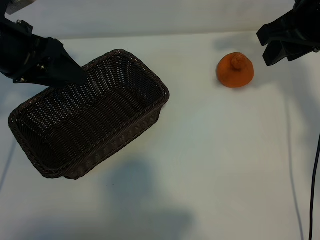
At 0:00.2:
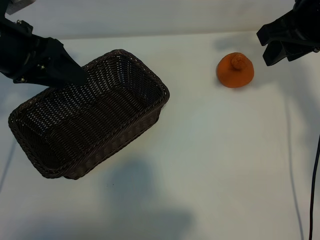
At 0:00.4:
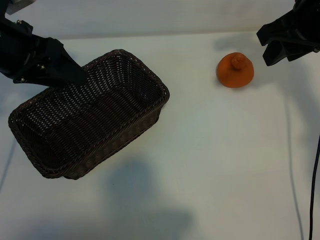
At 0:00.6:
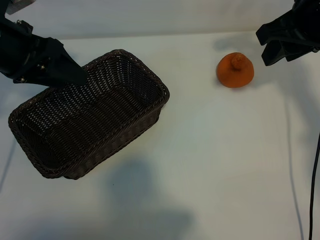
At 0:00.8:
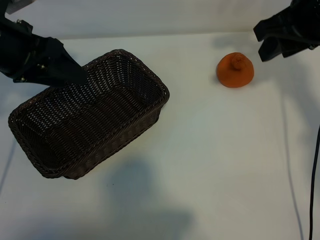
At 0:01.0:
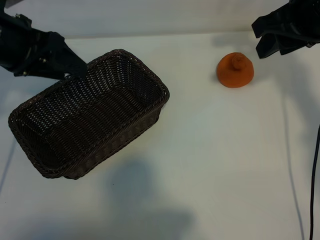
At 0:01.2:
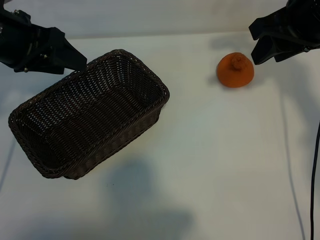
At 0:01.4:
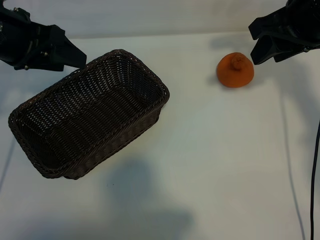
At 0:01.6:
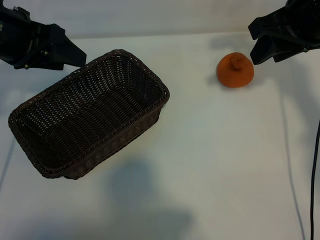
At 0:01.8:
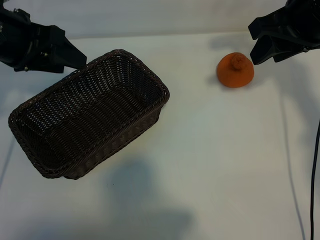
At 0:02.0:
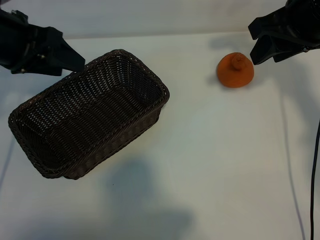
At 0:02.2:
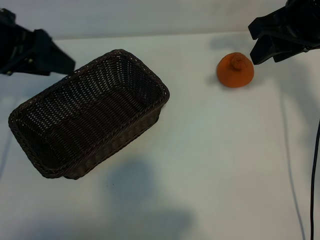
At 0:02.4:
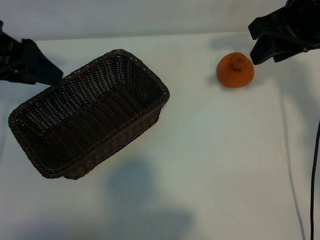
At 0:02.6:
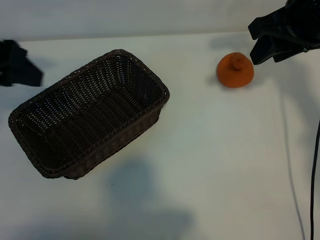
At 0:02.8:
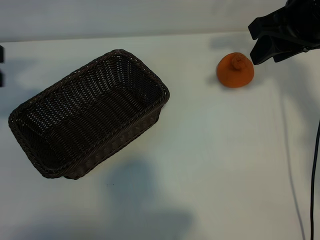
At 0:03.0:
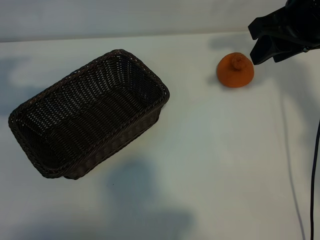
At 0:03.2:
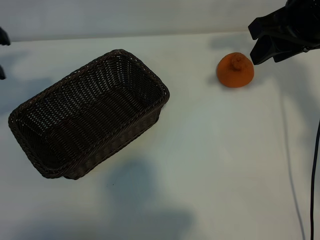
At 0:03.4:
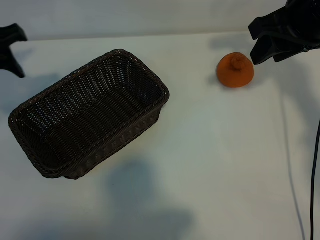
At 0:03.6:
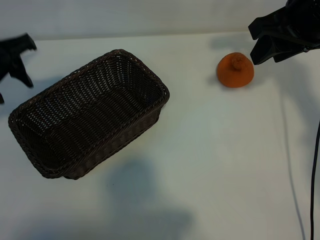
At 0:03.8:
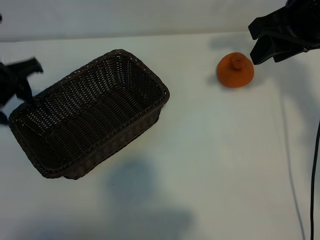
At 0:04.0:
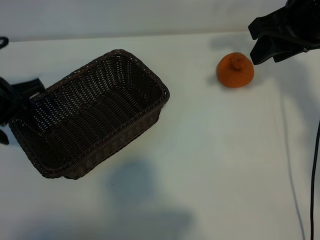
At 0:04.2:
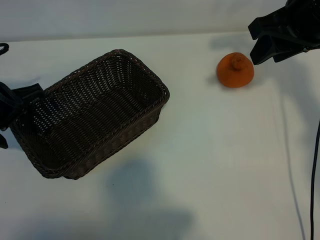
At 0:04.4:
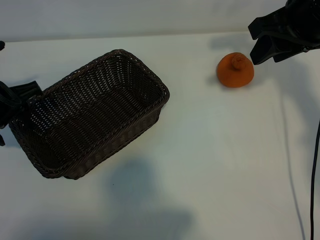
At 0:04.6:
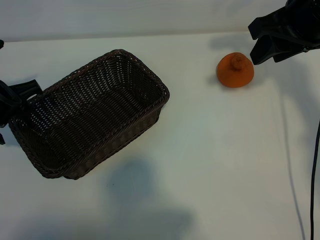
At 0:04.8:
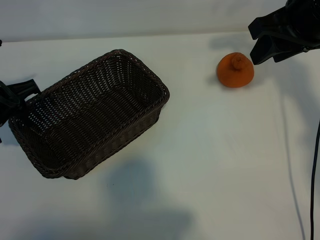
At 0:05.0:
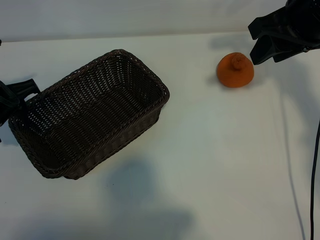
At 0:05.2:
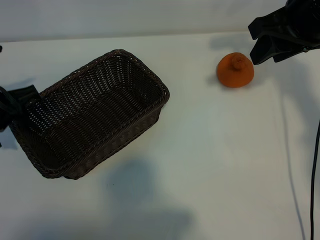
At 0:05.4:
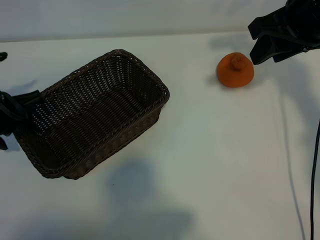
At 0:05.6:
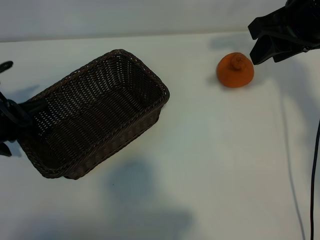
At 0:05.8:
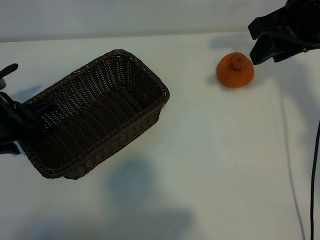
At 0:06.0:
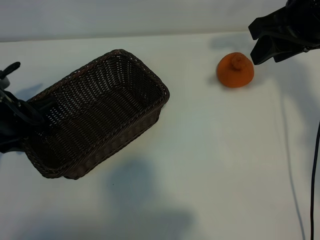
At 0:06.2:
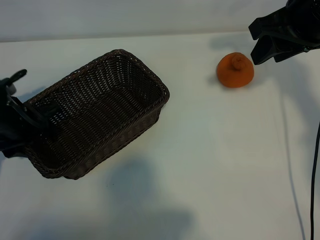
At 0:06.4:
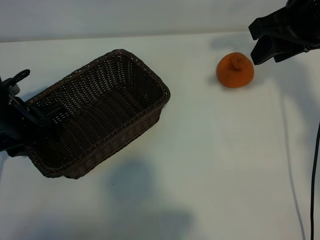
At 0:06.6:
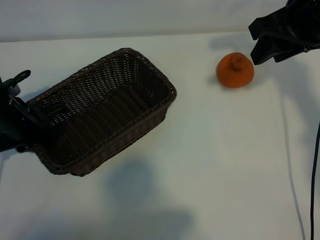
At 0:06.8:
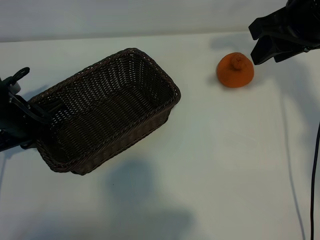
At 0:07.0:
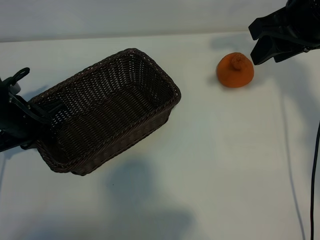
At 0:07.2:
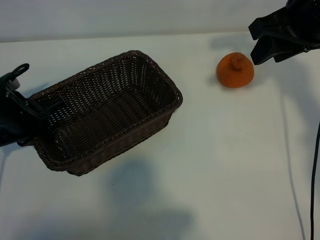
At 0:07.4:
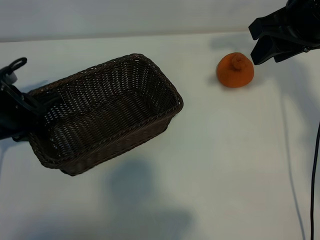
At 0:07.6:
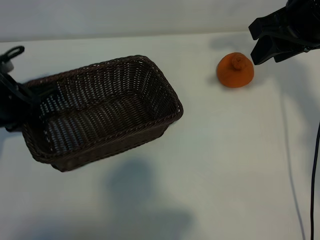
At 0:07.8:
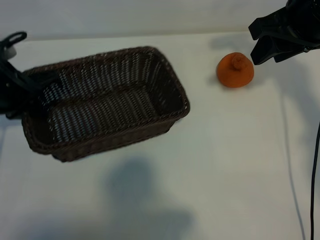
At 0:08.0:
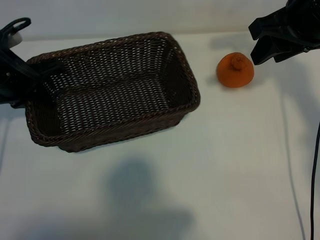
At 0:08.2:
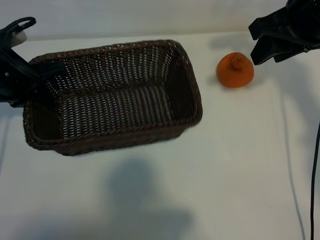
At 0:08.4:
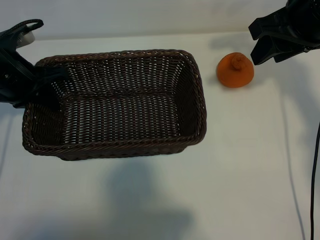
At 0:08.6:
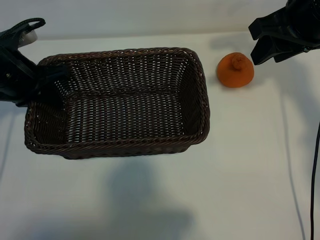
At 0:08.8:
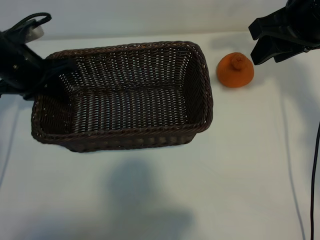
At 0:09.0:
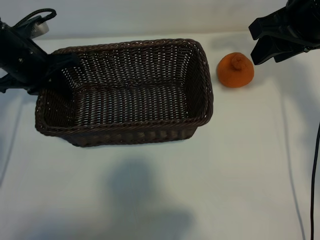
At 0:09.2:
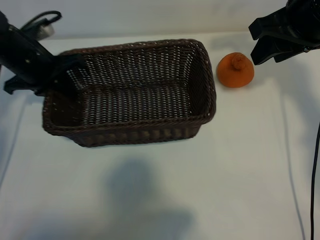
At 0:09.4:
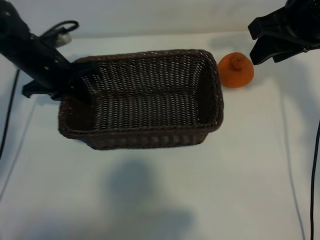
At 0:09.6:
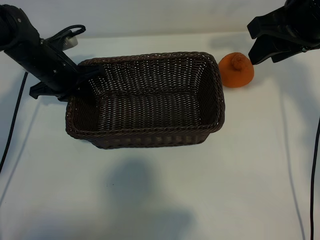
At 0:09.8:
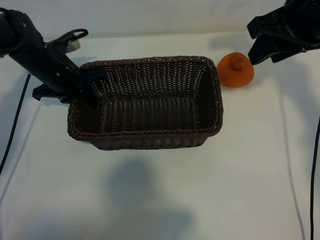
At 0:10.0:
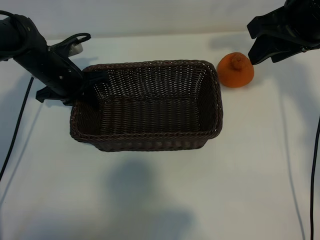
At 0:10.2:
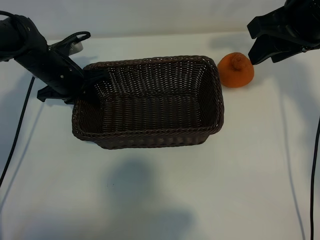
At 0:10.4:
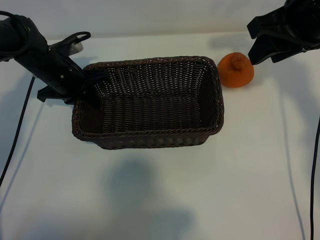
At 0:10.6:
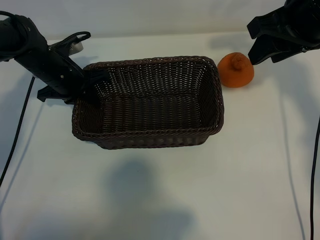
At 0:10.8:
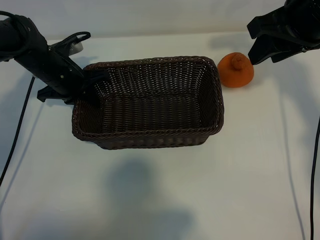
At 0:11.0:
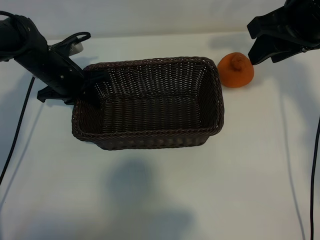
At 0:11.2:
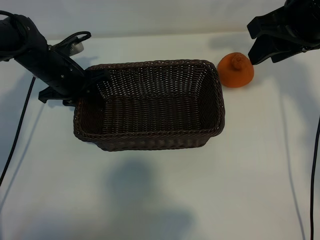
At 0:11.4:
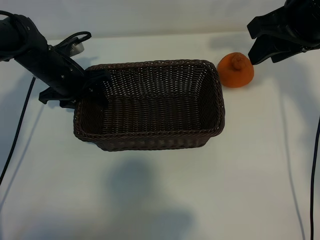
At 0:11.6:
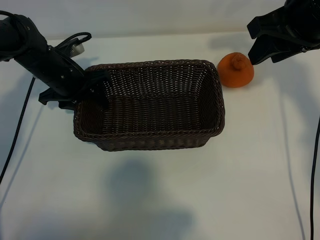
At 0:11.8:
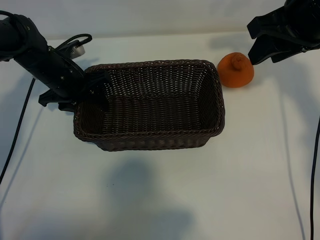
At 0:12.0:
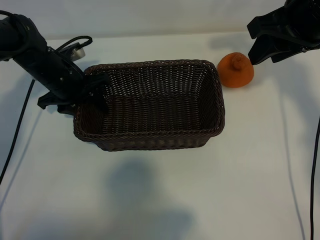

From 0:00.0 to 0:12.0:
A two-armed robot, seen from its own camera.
Task of the whole recording: pick up the orange and put it into the basket.
Step, from 0:00.6 to 0:06.6: Grasp the basket with left gripper.
Step, from 0:06.8 to 0:11.2: Place the basket in the center of view with left gripper.

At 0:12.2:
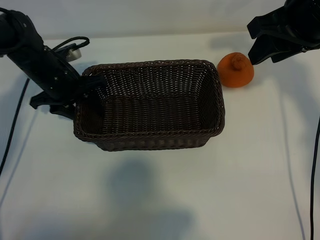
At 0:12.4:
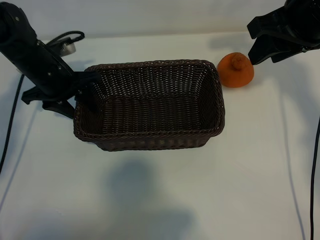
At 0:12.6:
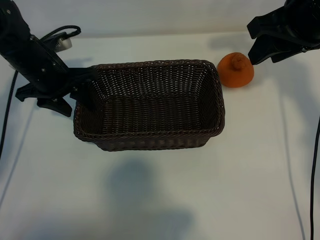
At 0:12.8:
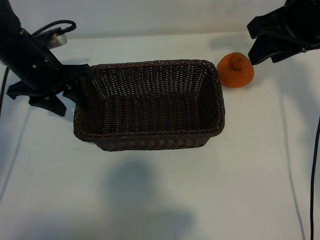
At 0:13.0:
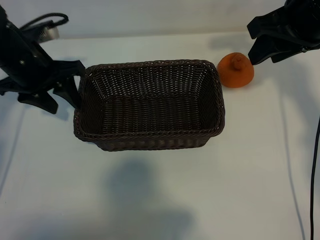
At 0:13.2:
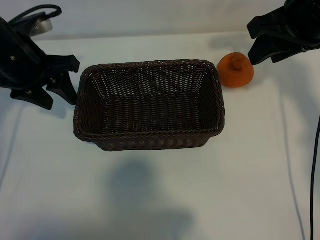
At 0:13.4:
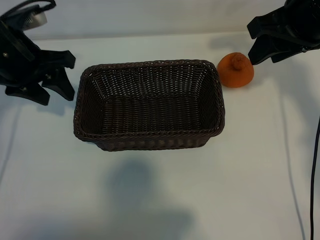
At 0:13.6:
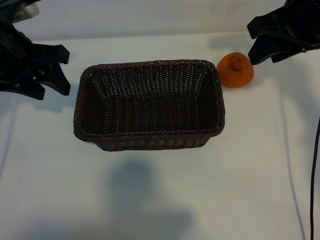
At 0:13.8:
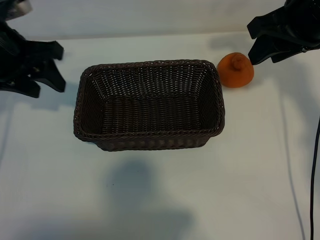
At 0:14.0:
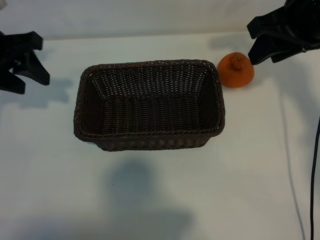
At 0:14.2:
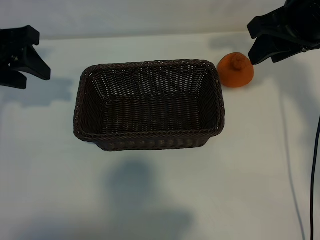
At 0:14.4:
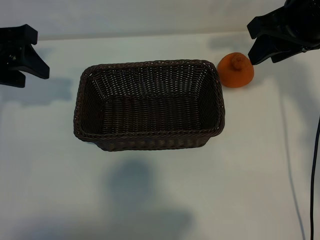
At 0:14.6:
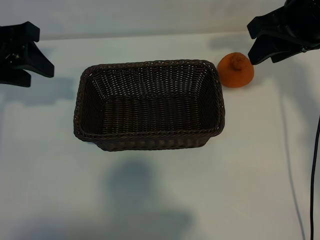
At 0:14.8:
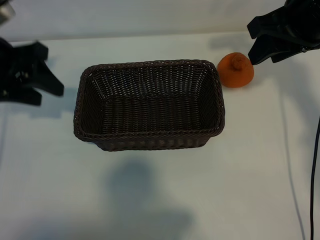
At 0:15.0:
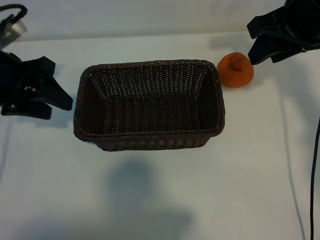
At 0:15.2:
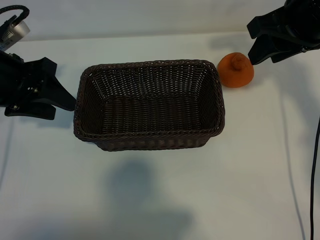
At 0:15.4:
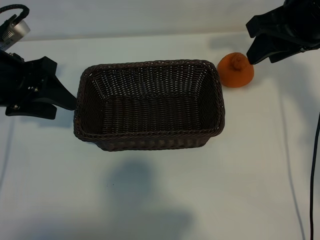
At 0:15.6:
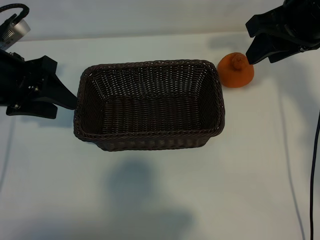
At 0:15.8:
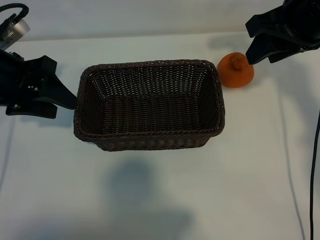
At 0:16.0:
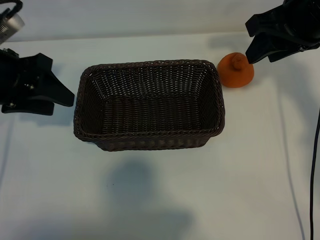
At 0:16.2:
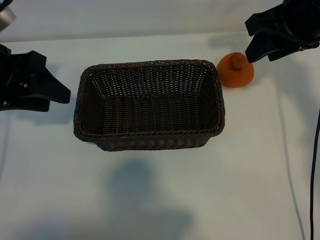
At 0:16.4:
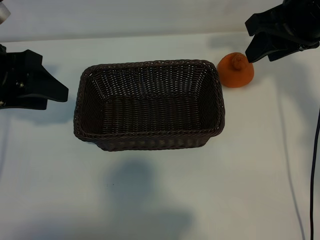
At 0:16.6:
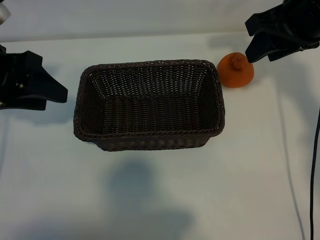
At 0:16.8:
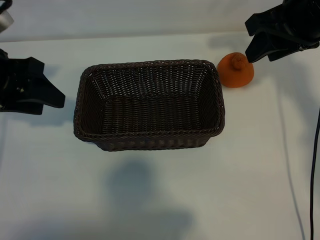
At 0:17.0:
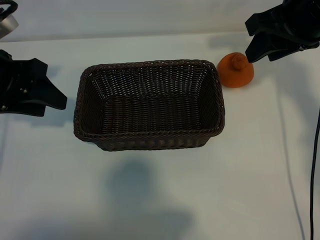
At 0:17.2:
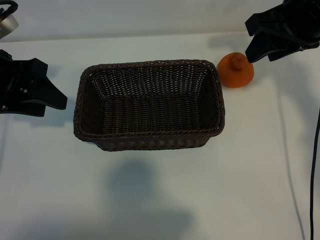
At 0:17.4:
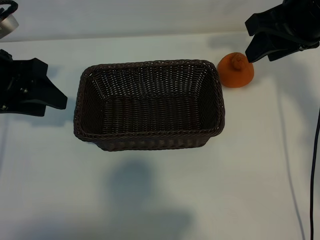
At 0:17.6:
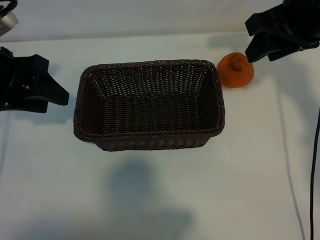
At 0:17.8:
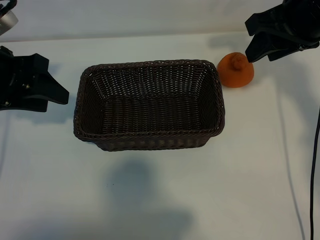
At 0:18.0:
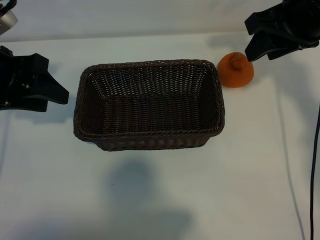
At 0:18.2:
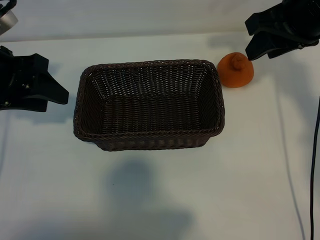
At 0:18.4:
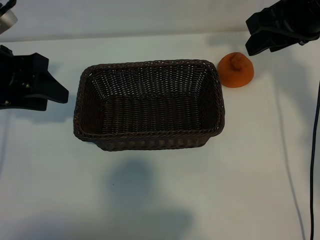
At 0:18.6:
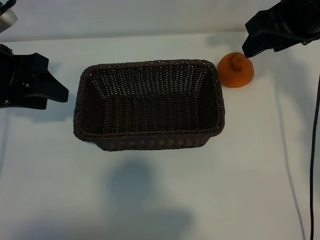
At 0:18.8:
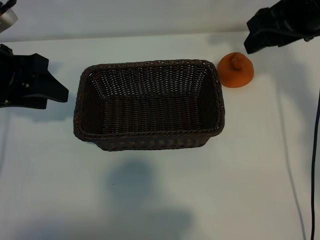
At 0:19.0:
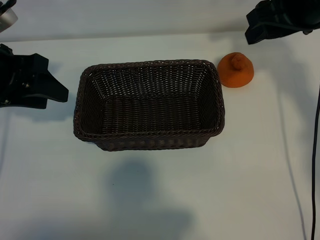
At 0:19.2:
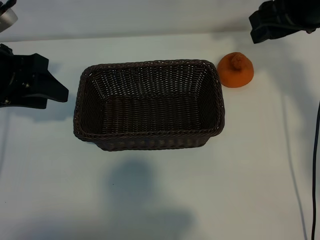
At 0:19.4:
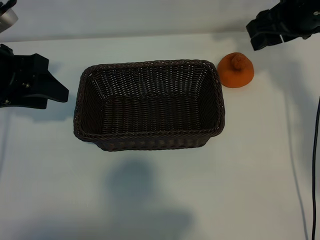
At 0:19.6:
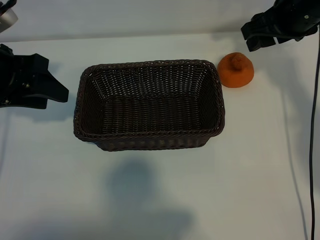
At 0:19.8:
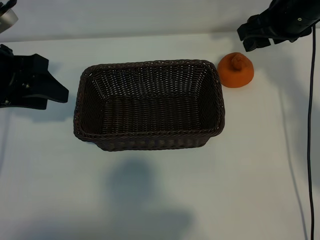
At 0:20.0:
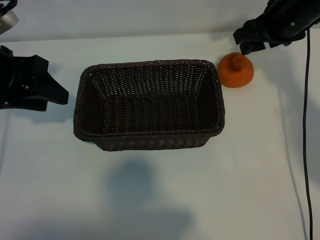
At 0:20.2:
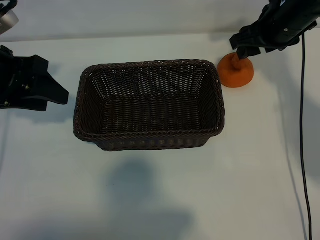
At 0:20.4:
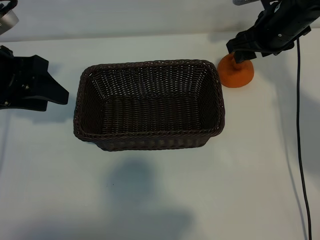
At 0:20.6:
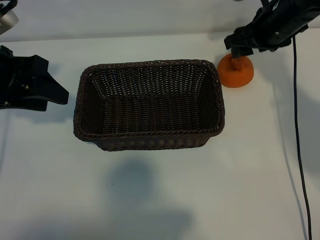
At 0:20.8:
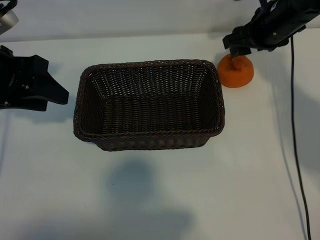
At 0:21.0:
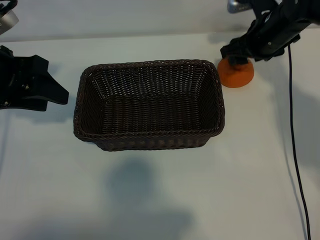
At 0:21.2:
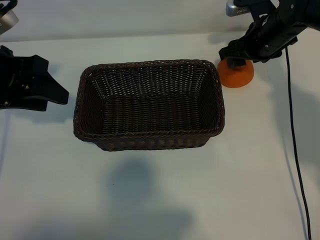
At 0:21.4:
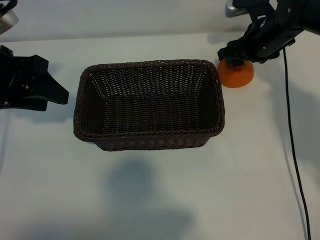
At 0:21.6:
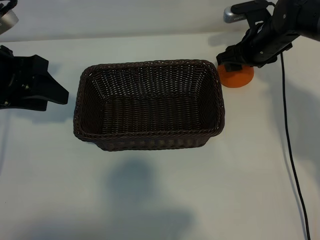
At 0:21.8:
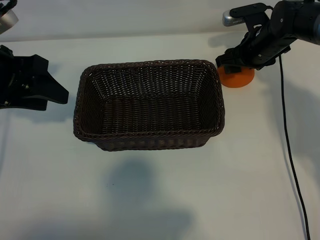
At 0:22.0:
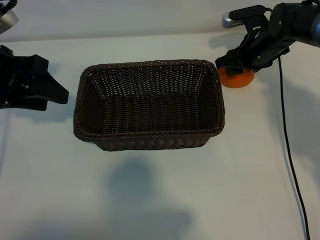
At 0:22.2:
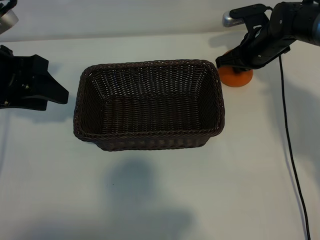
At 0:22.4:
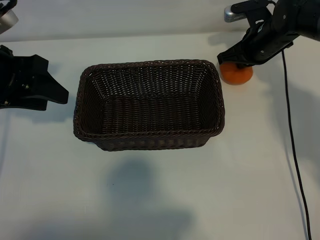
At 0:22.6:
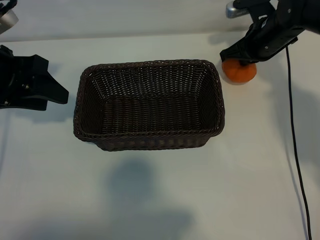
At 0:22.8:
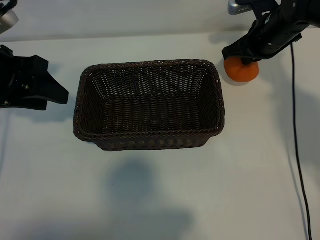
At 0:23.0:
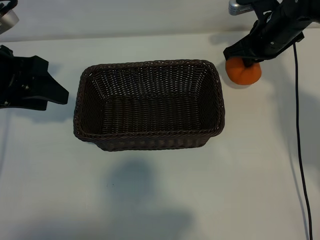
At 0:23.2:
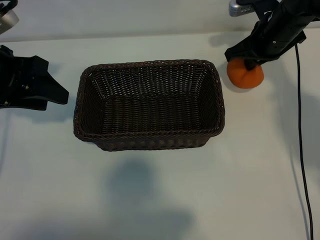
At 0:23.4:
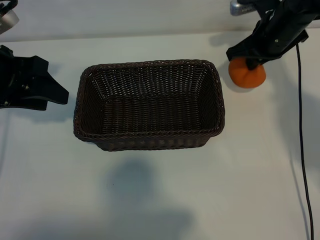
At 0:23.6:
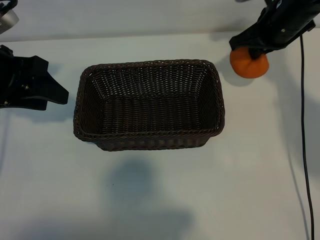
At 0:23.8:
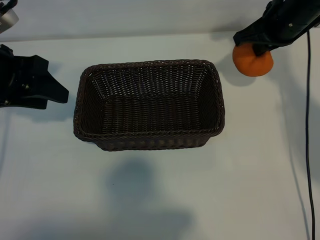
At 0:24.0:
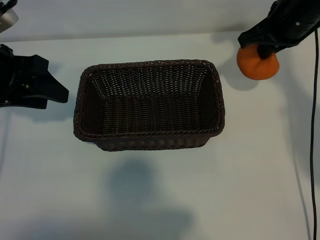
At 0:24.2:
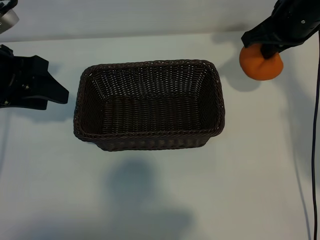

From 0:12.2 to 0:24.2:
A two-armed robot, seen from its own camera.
Task of the whole recording: pick up the orange and put it into the basket.
Step, from 0:12.2 to 0:22.2: Grasp the orange with right gripper.
